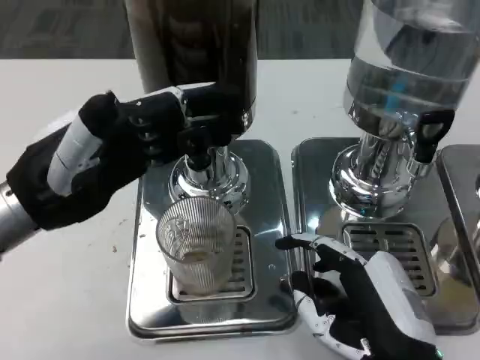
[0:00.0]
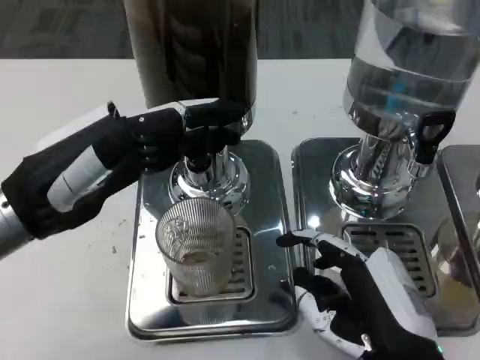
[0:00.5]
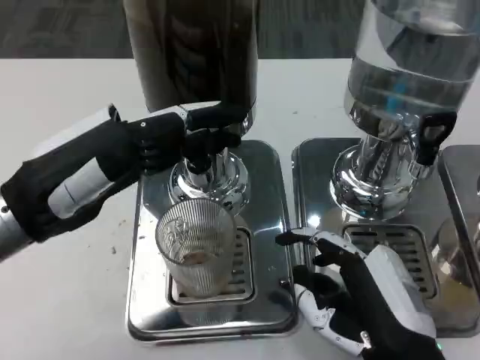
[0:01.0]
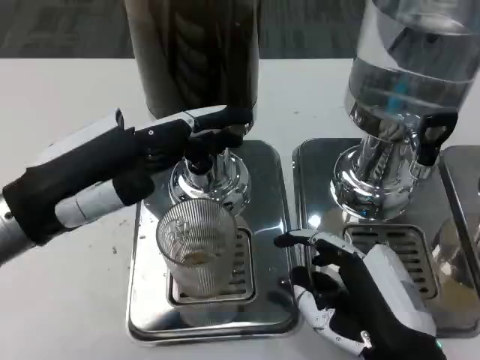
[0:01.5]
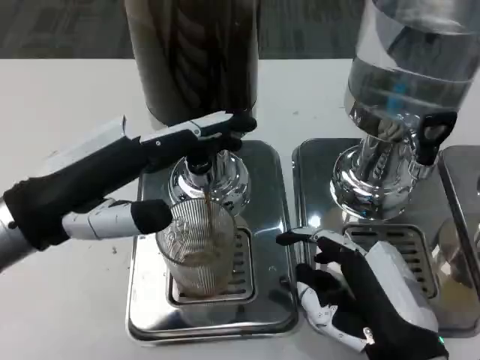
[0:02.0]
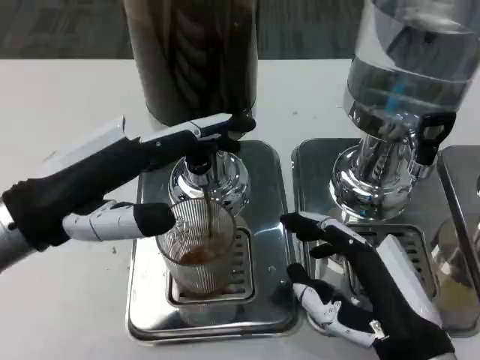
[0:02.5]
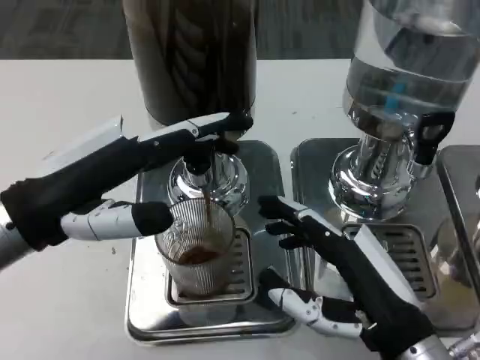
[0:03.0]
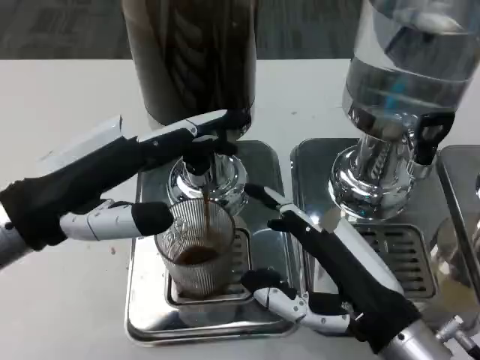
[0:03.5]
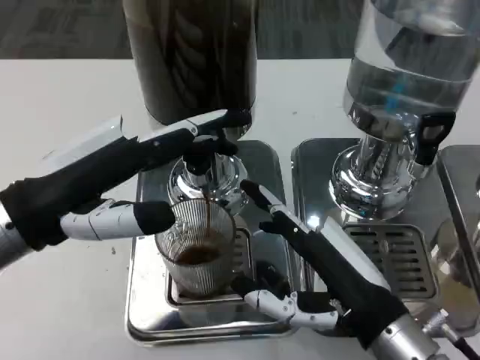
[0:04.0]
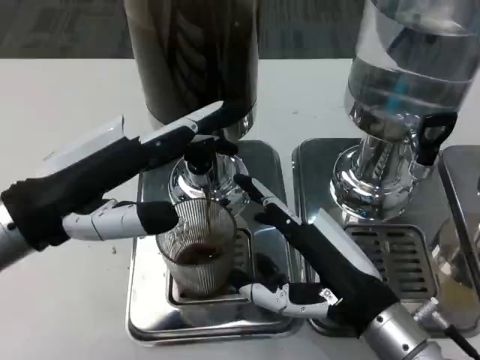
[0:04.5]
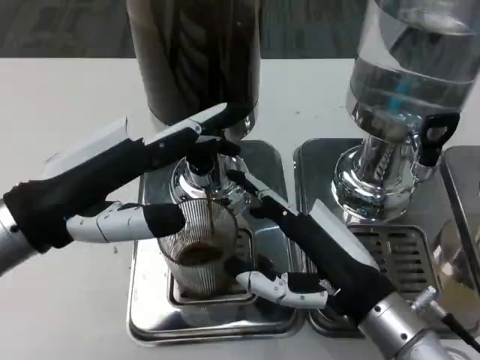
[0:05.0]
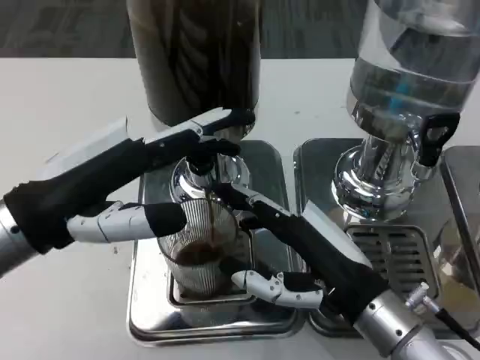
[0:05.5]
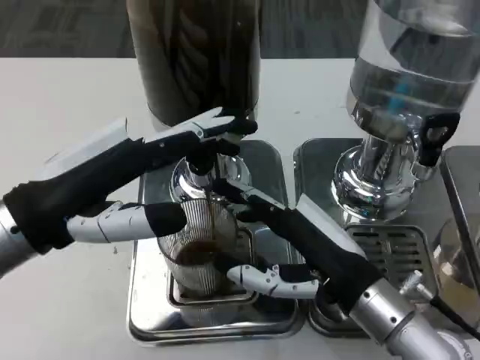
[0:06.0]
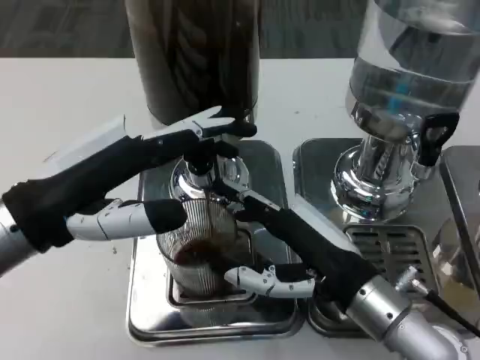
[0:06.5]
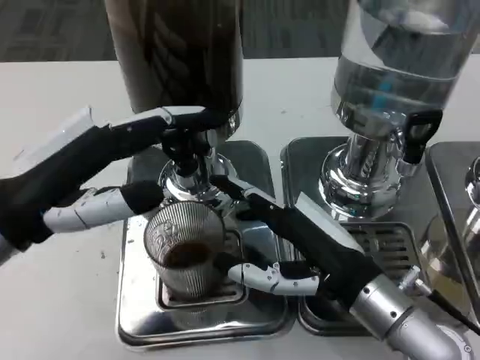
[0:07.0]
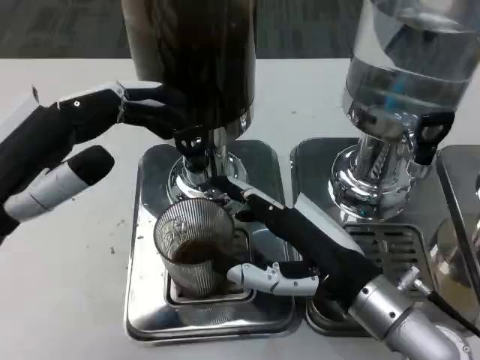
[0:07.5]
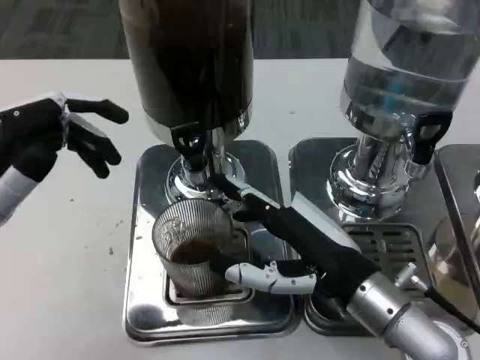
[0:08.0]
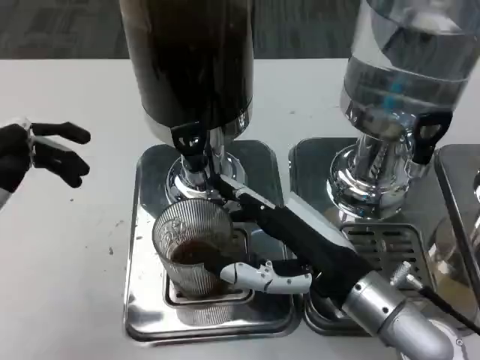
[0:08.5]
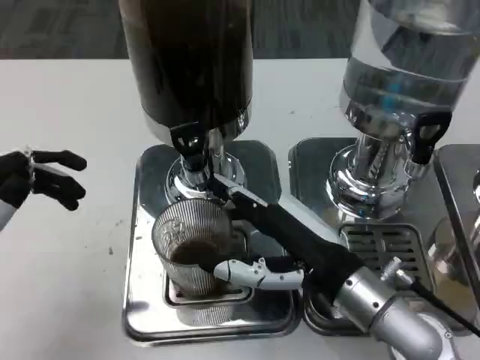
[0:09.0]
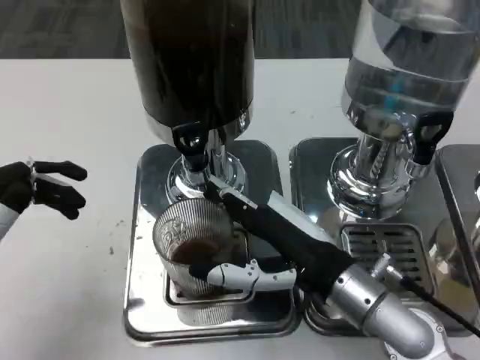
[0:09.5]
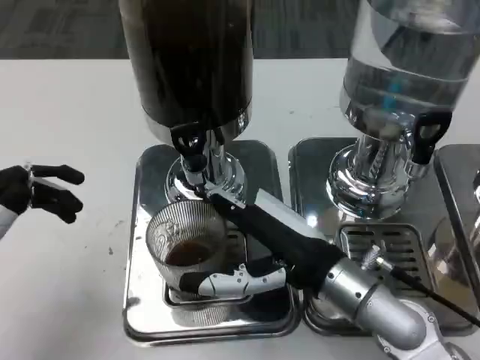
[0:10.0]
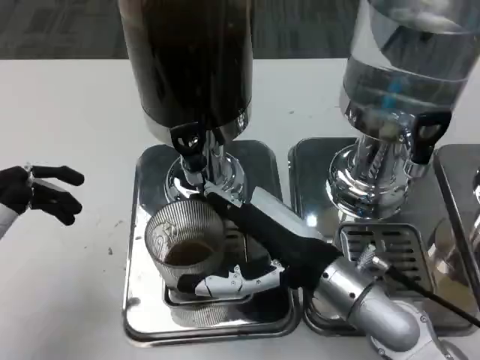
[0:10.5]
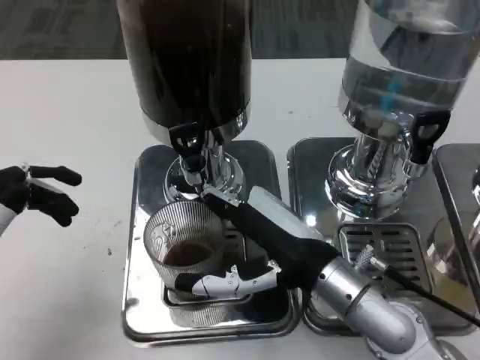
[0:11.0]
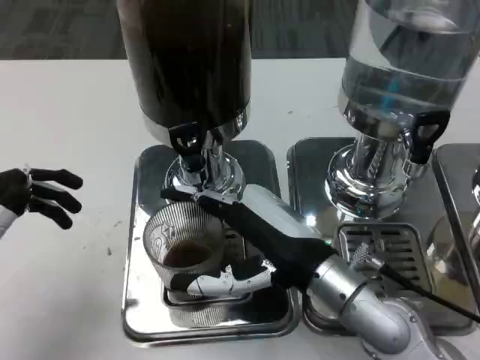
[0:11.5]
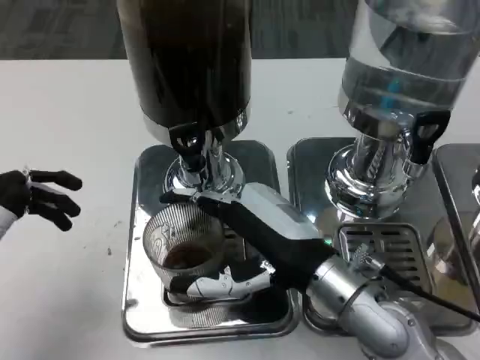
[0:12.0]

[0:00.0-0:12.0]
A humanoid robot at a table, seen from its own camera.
Task of the whole recording: Grasp the cup under the faucet to collect the drink, then remove the cup.
0:06.0 to 0:08.0: The left hand shifts by roughly 5 cm.
0:08.0 to 0:10.0: The left hand moves roughly 5 cm.
0:10.0 to 0:12.0: There are only small adjustments of the hands.

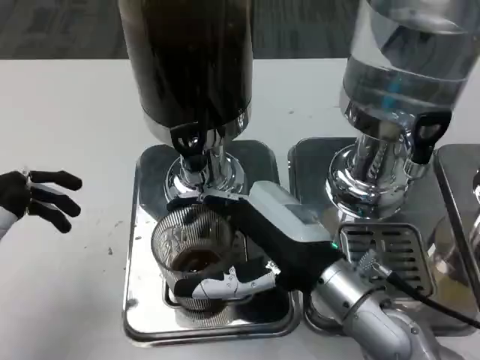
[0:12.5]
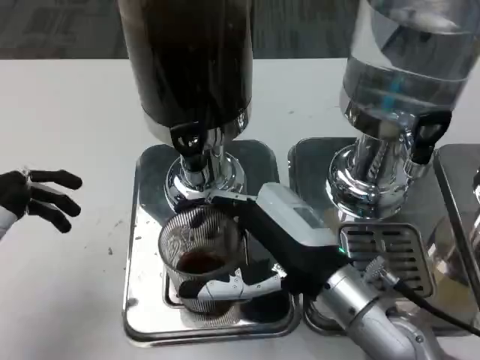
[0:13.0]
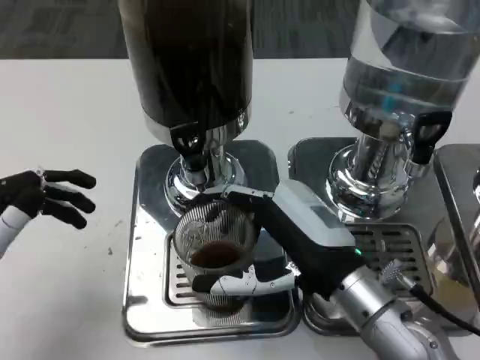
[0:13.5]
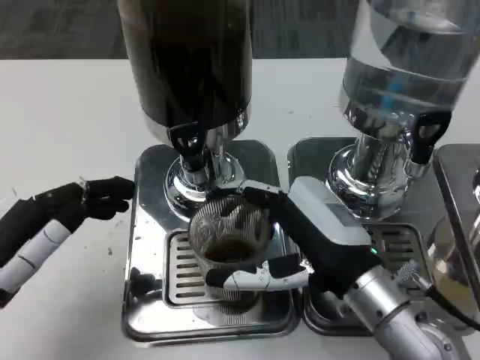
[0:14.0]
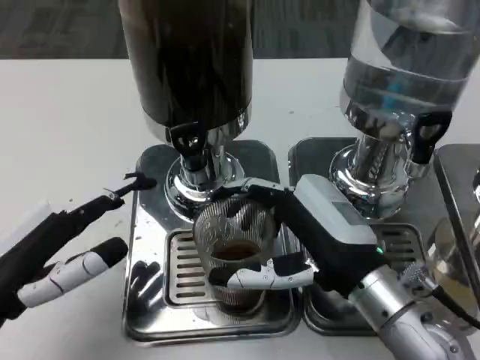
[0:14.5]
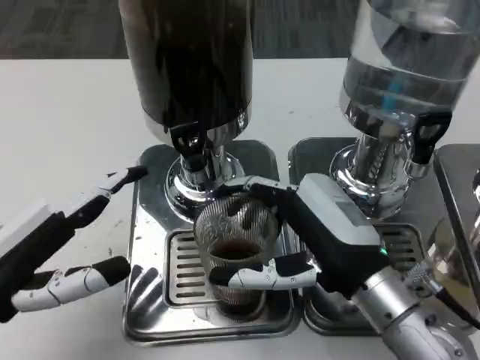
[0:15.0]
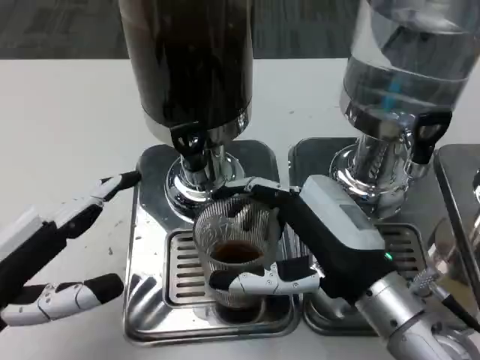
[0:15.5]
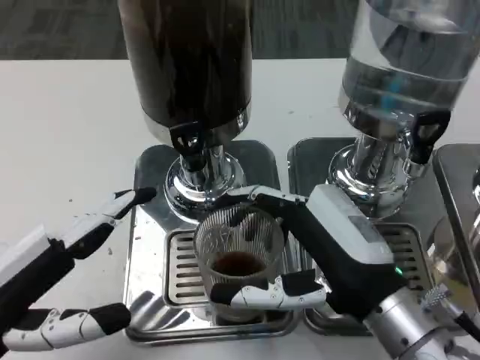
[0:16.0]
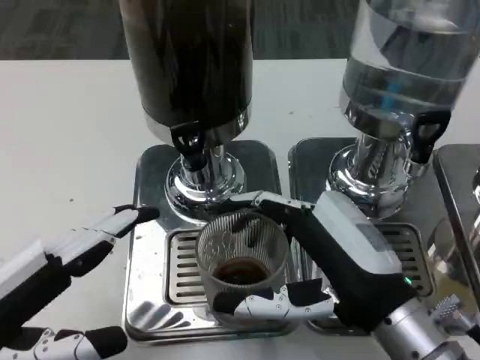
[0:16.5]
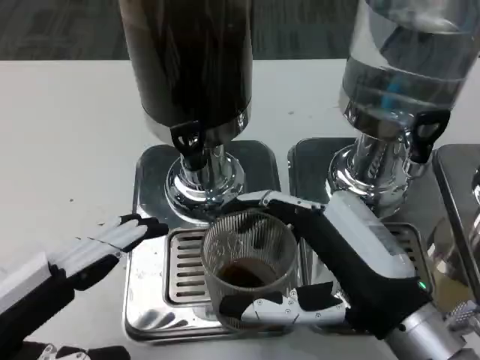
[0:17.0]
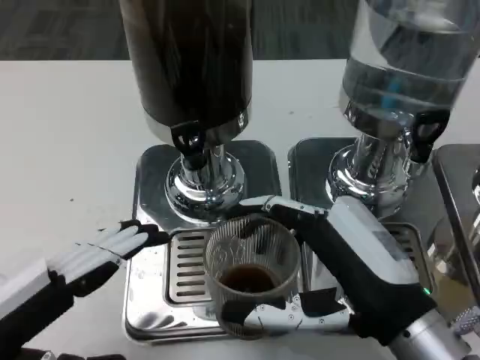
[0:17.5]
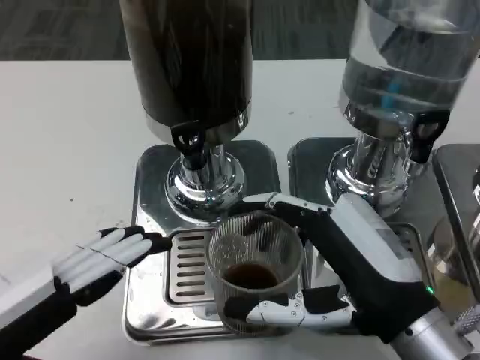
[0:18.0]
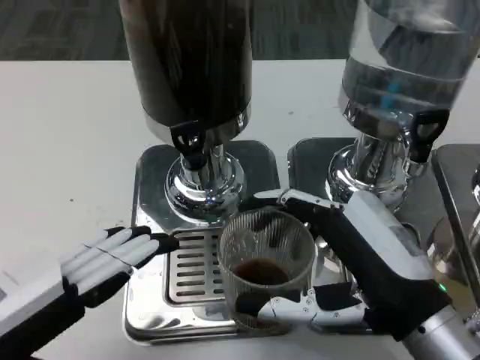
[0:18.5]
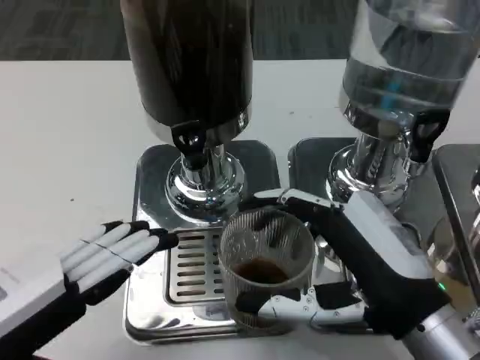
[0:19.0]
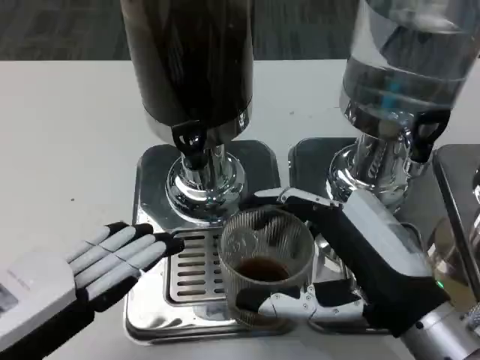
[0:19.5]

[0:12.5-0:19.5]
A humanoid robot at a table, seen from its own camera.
Task of the whole recording: Grasp the cup under the faucet to collect the drink, then remove the cup.
0:17.5 to 0:19.5: The hands make only small movements.

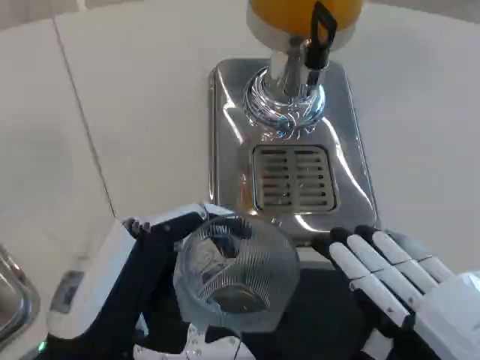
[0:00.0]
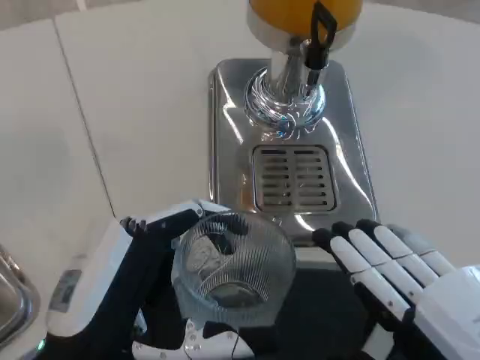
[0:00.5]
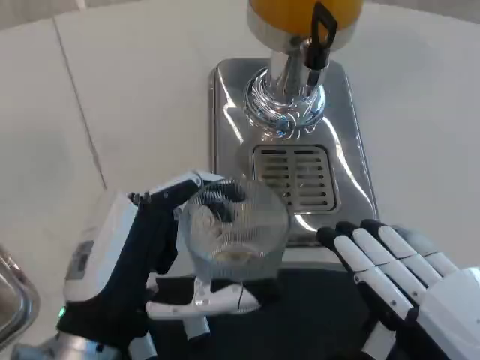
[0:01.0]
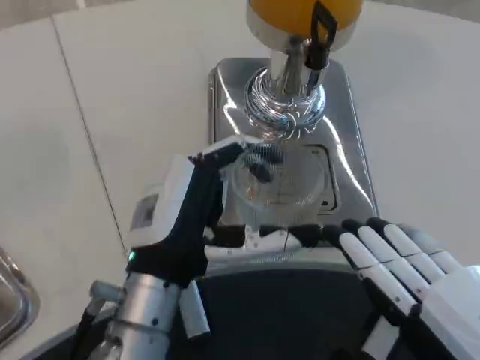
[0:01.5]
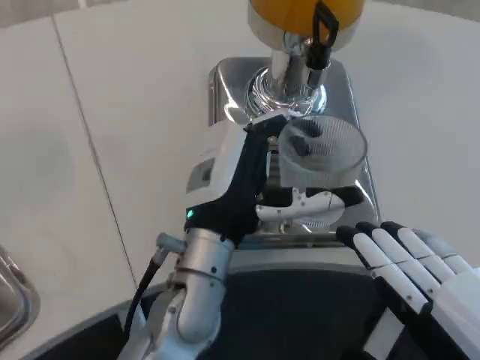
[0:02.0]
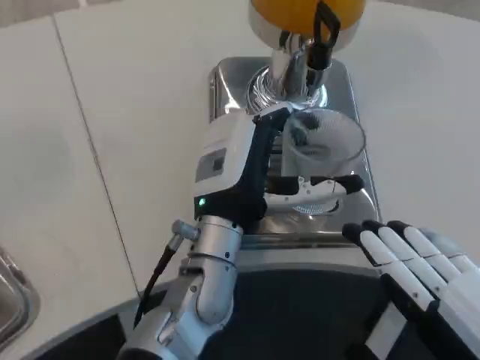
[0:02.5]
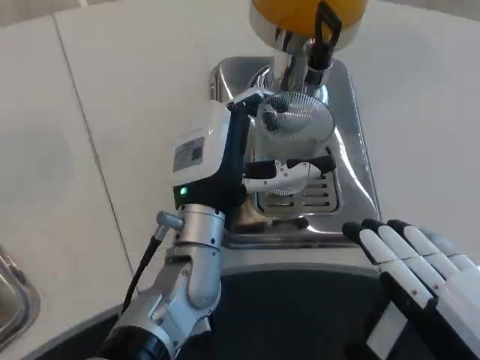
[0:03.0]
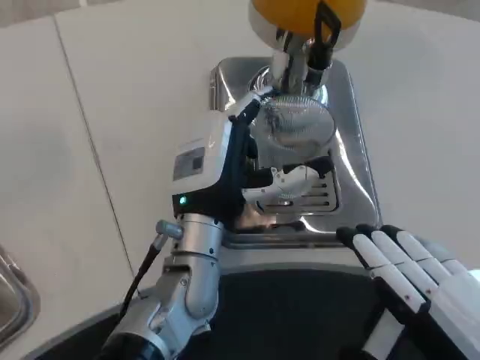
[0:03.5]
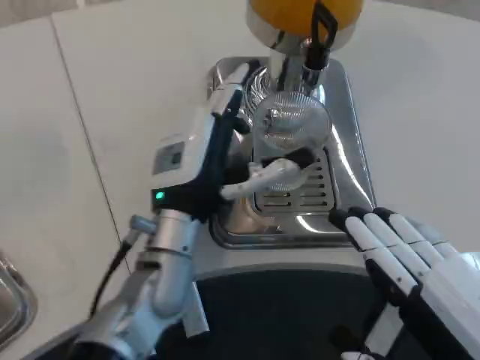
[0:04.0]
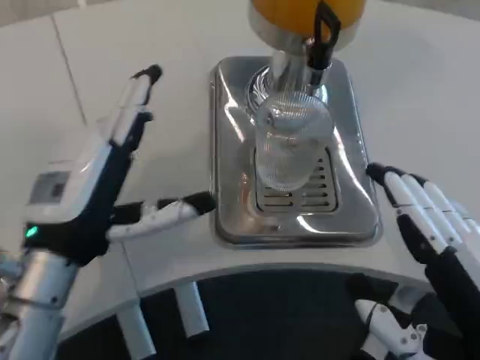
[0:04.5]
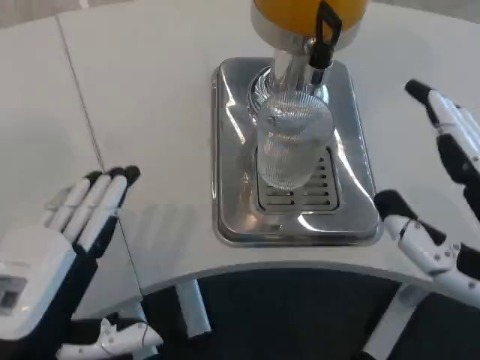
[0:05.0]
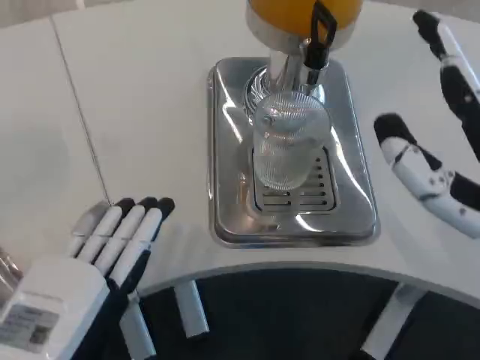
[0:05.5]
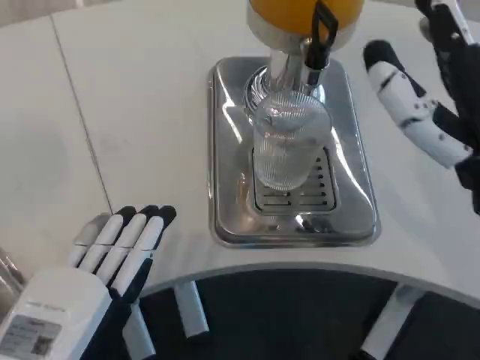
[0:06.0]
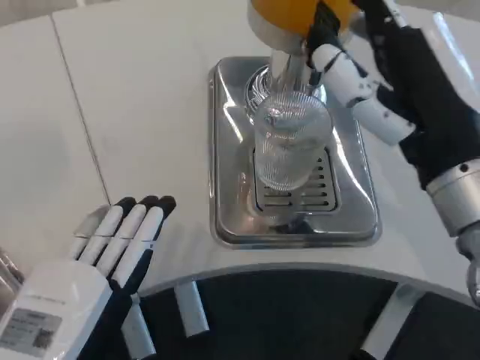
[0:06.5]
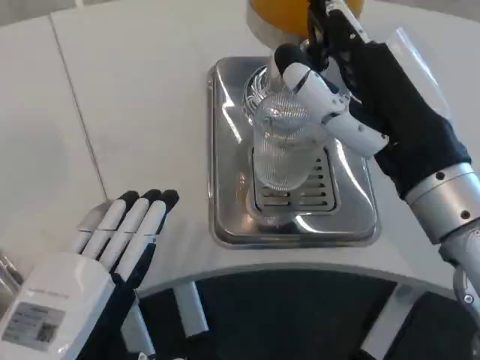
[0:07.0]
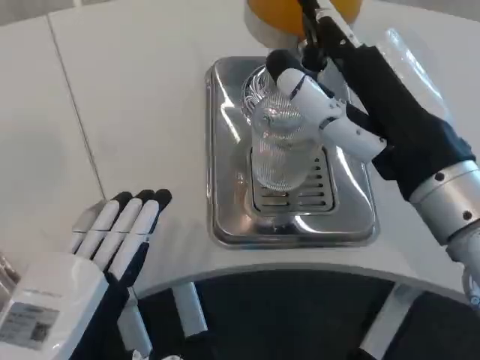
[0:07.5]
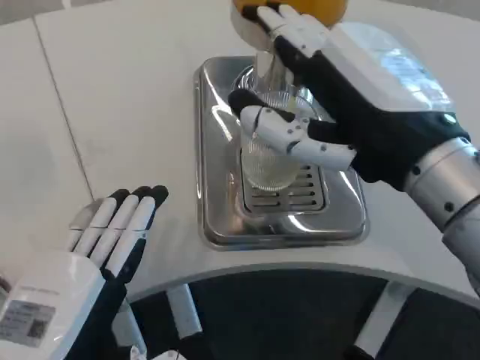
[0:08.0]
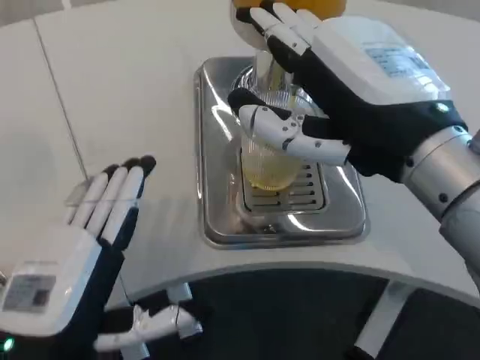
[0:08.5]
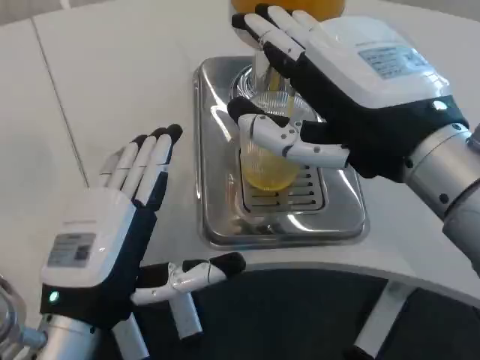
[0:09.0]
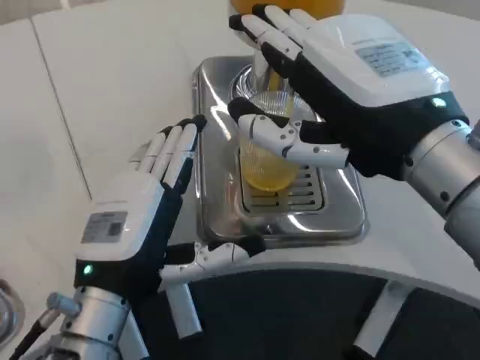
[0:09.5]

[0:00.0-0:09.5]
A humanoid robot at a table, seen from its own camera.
Task of the whole recording: Grasp the cup under the faucet to collect the drink, then remove the cup.
0:00.0 to 0:02.0: The left hand is displaced forward and to the right by roughly 20 cm.
0:04.0 to 0:05.5: The left hand heads backward and to the left, covering roughly 20 cm. The right hand goes some 10 cm forward.
0:05.5 to 0:07.5: The right hand goes some 5 cm forward.
0:07.5 to 0:09.5: The left hand heads forward, covering roughly 10 cm.
